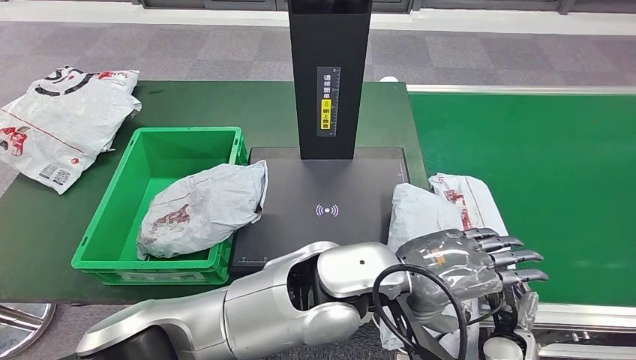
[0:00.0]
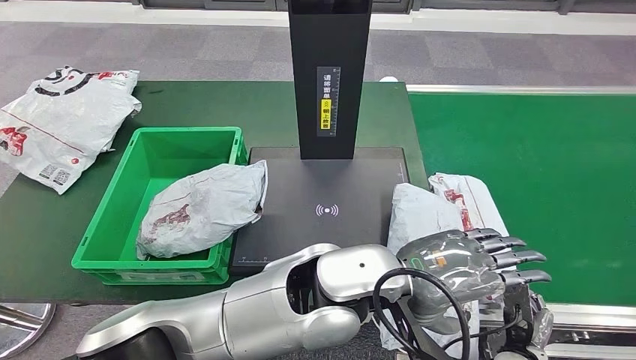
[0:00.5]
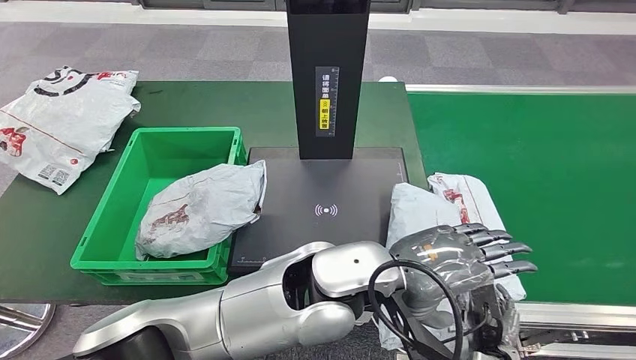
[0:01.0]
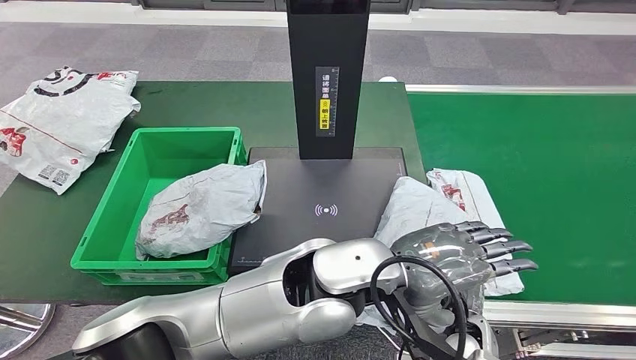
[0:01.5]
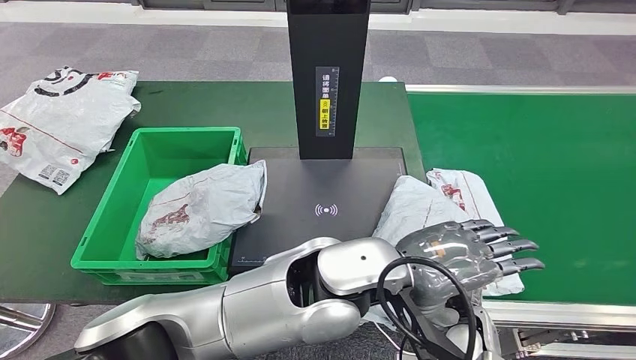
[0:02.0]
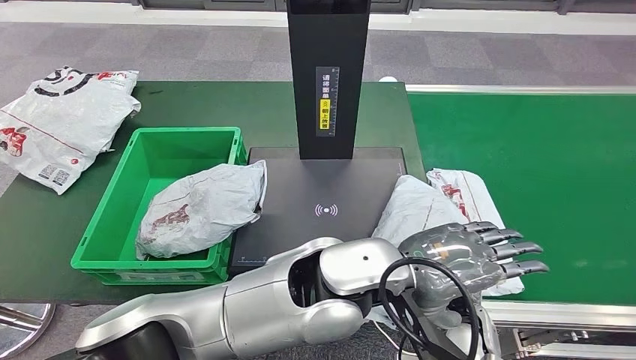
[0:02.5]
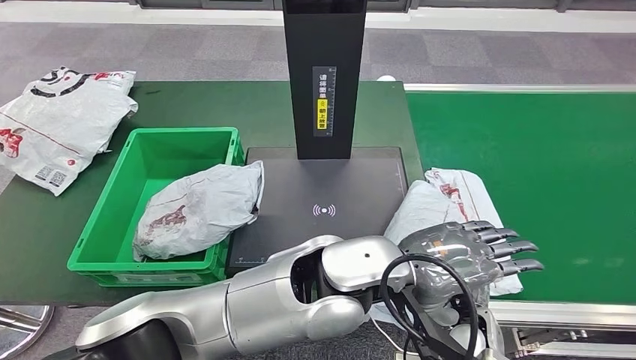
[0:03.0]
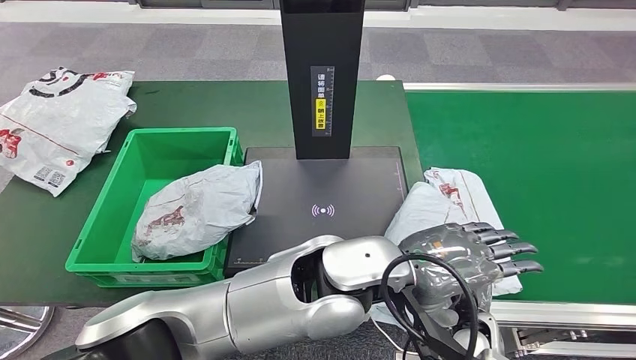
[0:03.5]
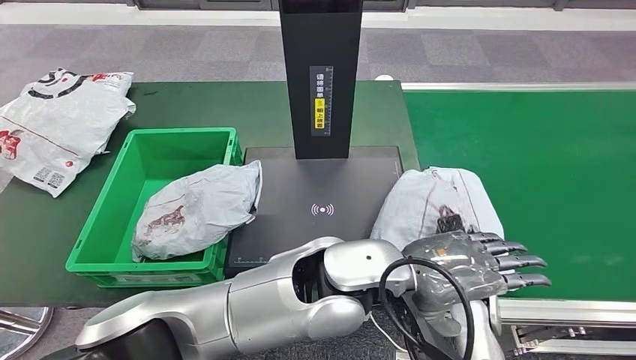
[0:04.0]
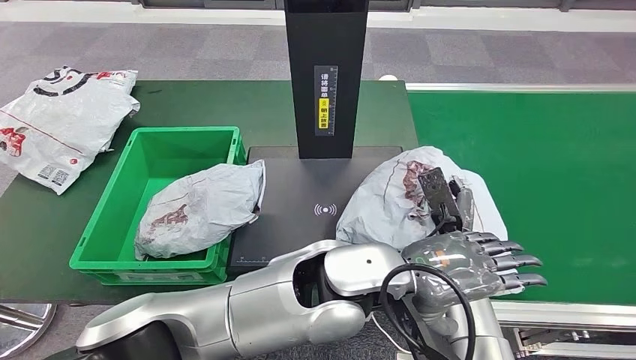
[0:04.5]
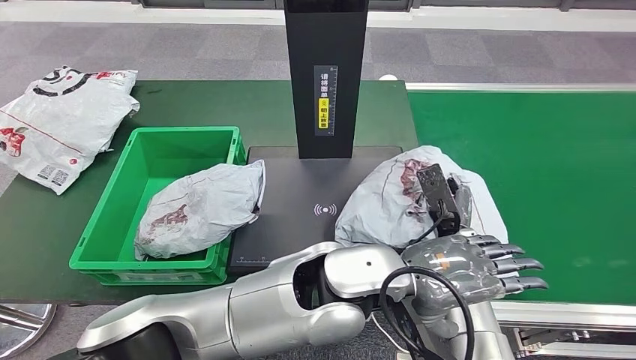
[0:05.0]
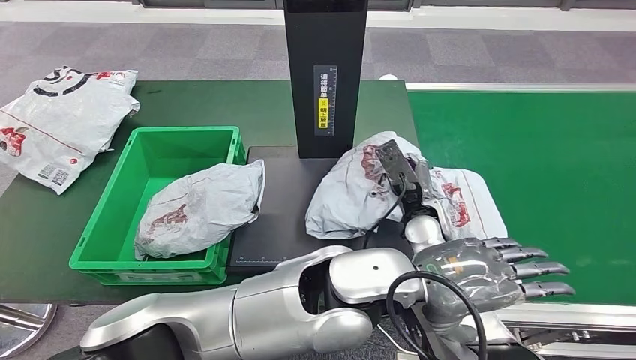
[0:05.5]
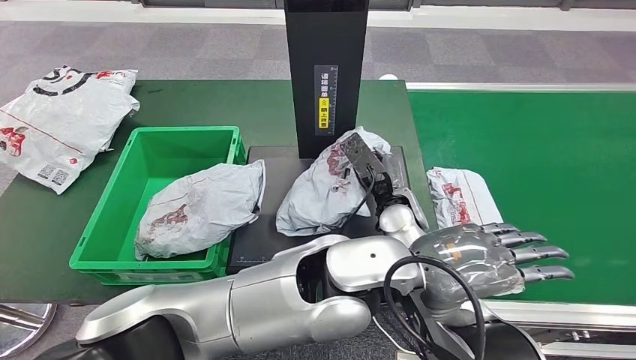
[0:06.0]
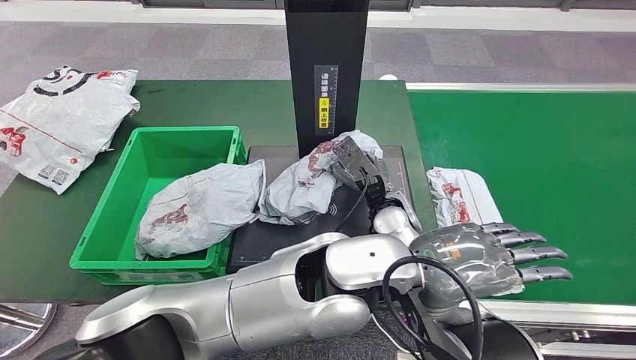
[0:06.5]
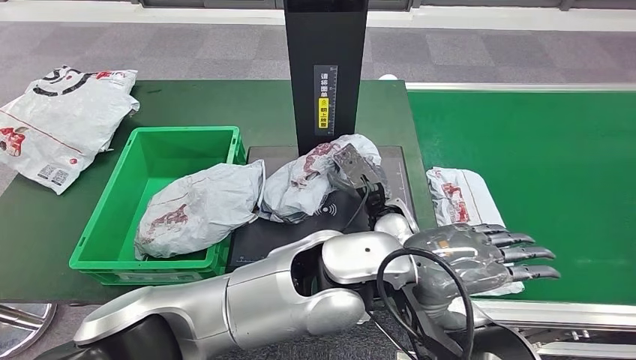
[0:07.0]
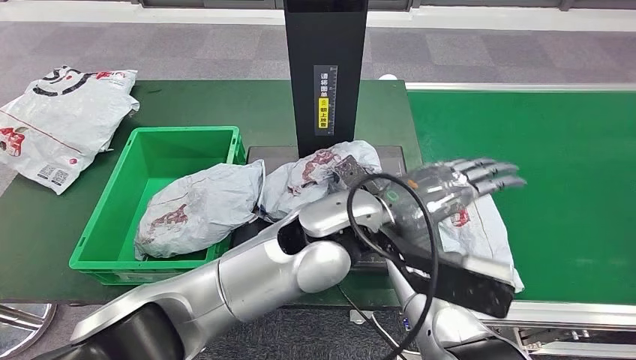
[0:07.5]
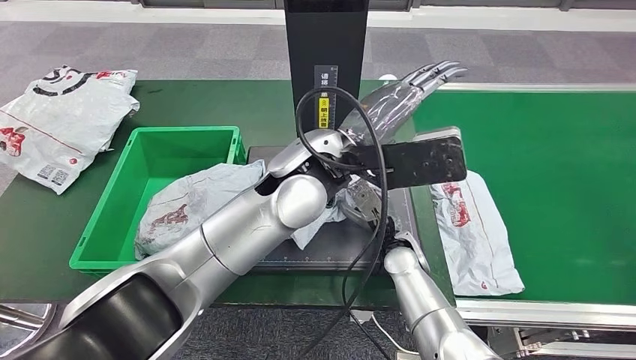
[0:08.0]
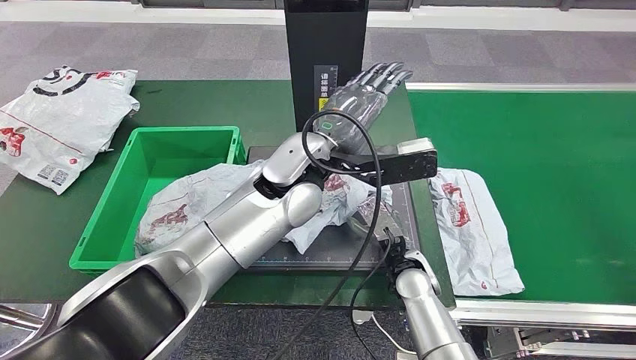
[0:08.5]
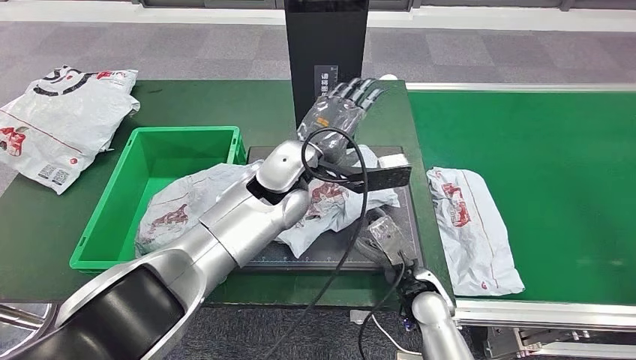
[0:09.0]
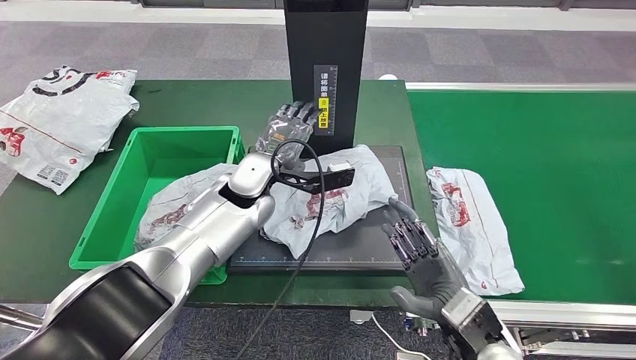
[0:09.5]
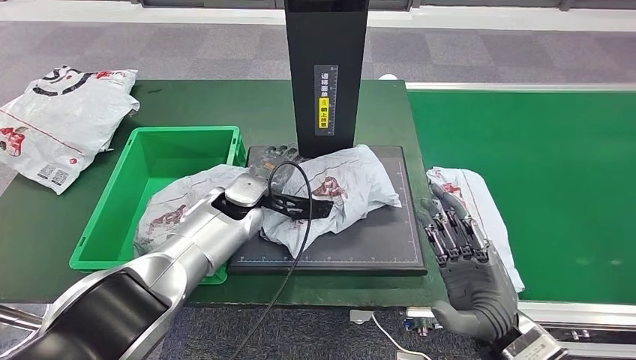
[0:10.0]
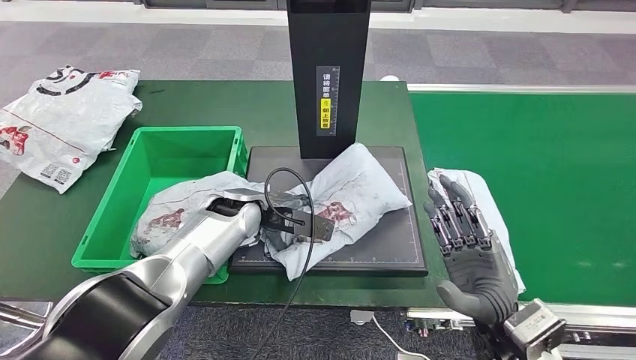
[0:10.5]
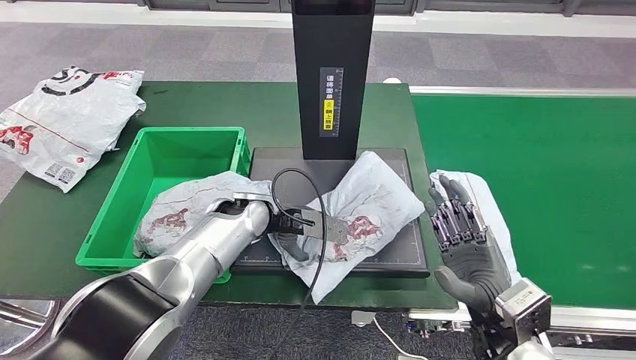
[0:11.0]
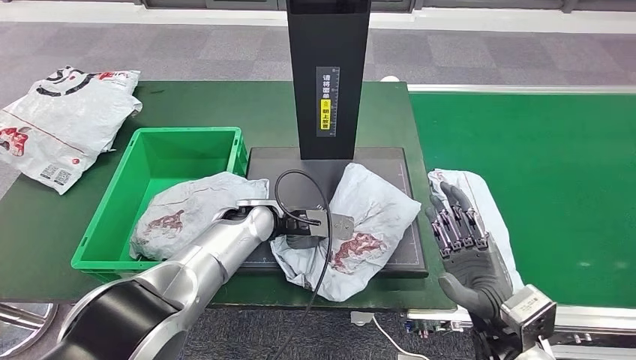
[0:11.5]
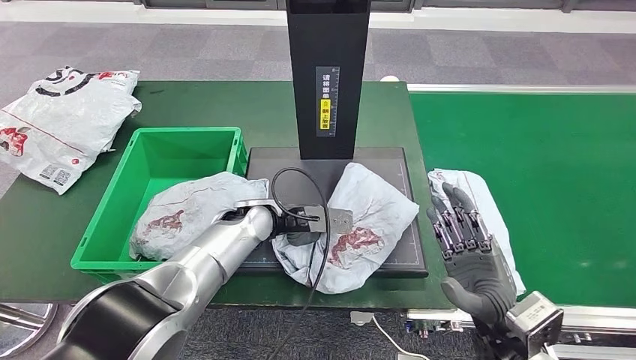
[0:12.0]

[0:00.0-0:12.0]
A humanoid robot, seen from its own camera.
0:00.0 to 0:02.0: The right hand travels to the left by roughly 10 cm.
0:02.0 to 0:04.0: The right hand moves some 5 cm.

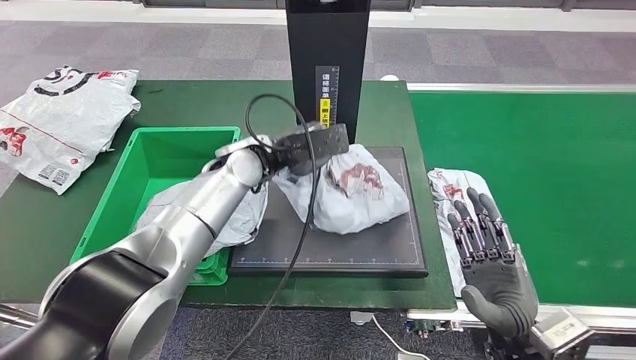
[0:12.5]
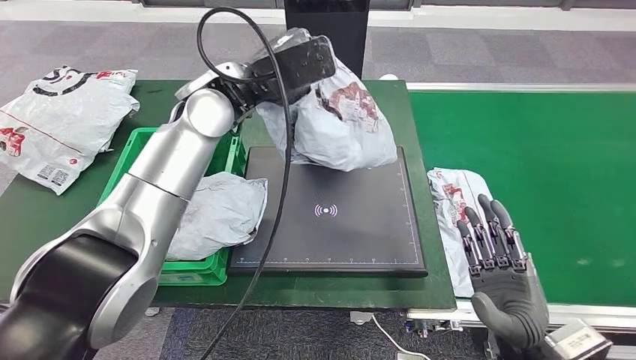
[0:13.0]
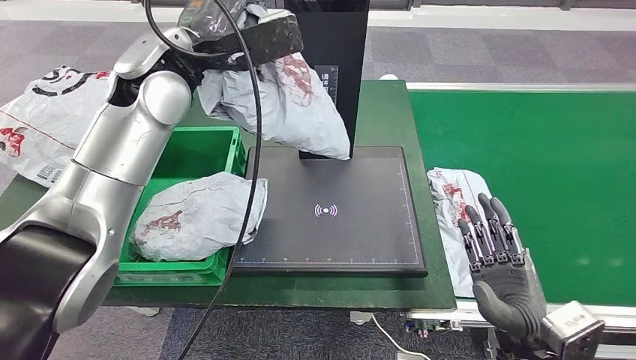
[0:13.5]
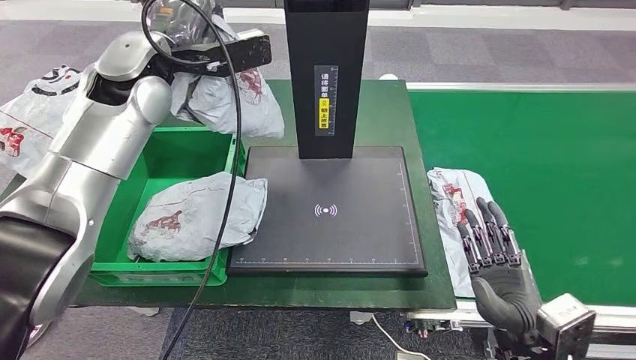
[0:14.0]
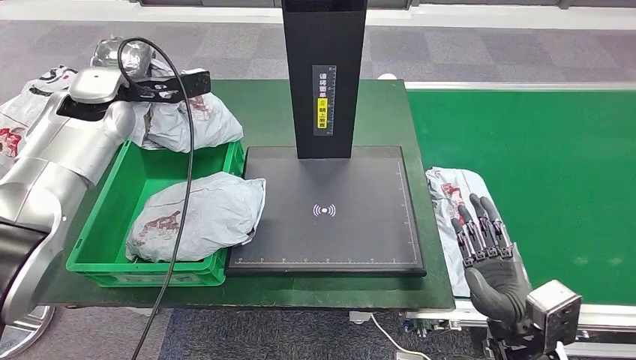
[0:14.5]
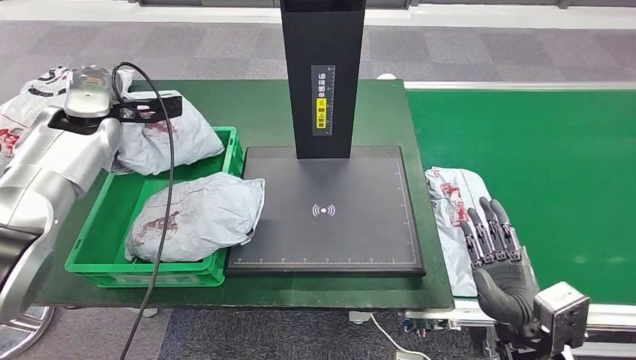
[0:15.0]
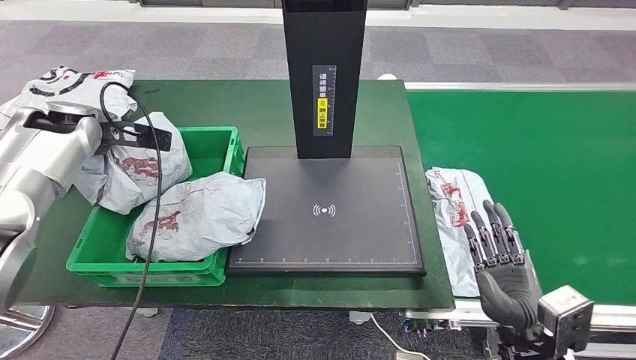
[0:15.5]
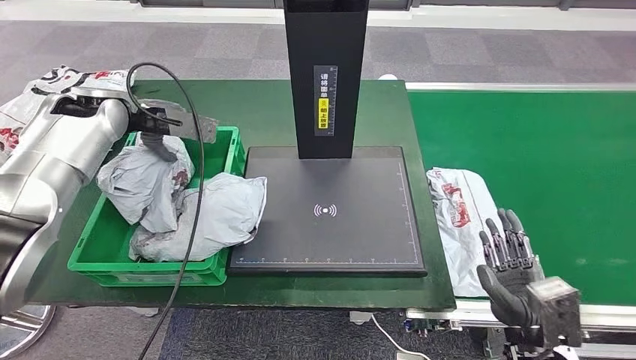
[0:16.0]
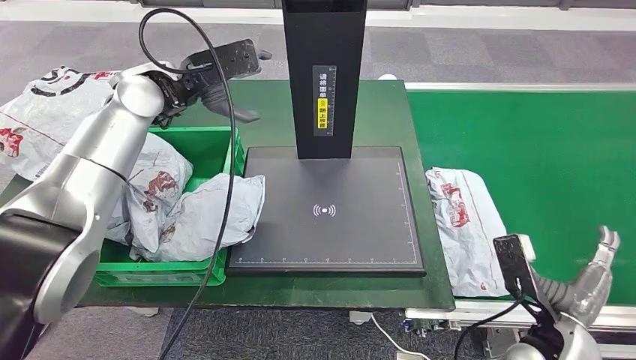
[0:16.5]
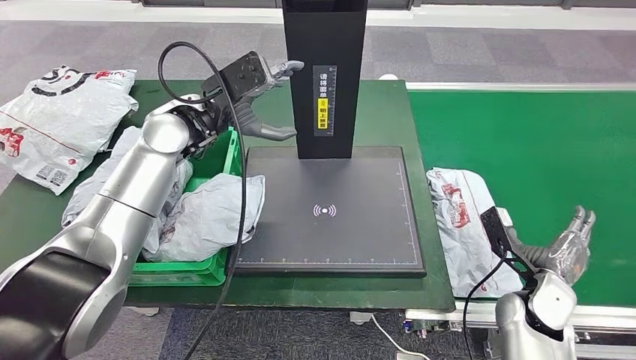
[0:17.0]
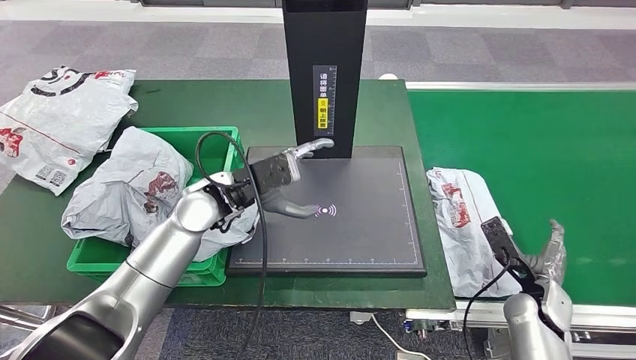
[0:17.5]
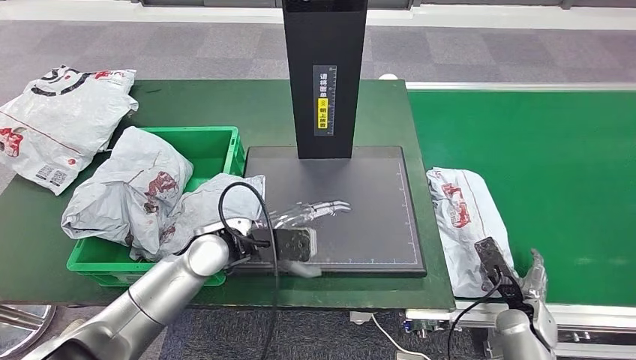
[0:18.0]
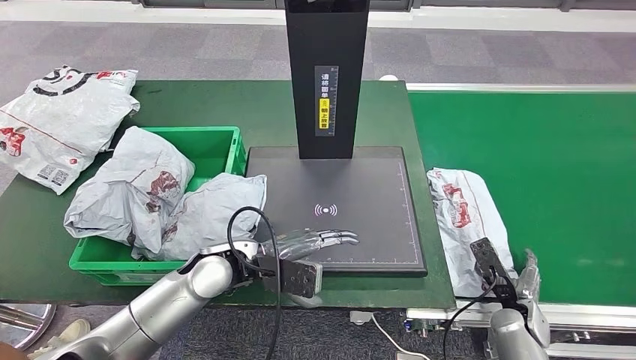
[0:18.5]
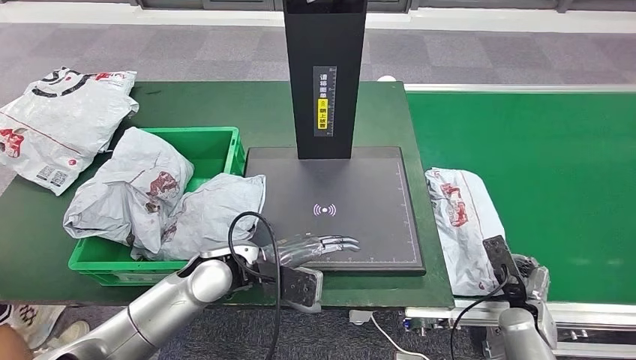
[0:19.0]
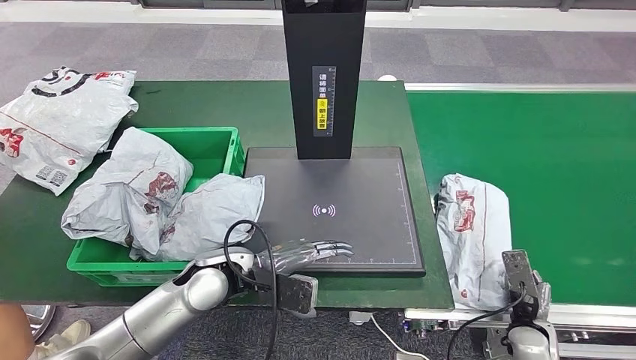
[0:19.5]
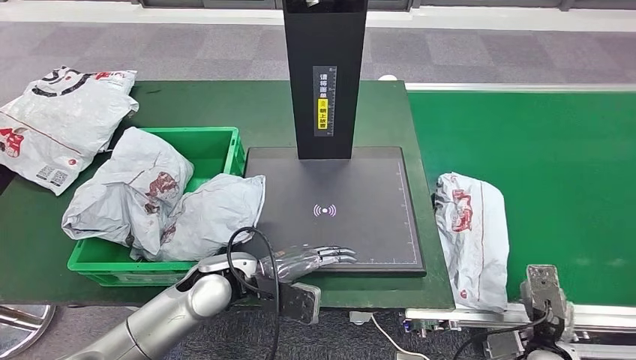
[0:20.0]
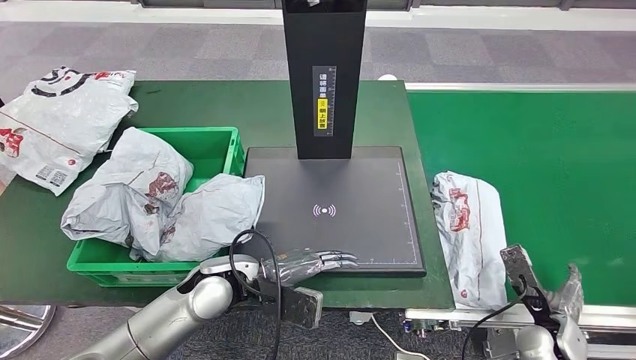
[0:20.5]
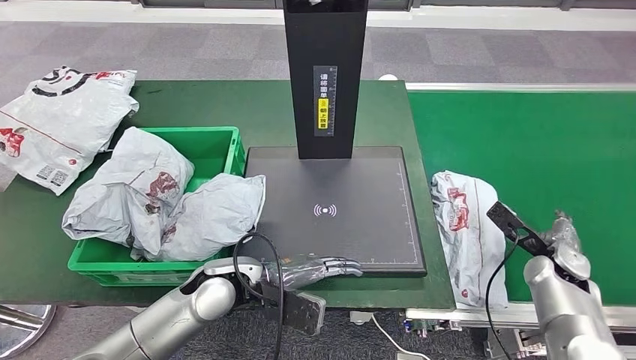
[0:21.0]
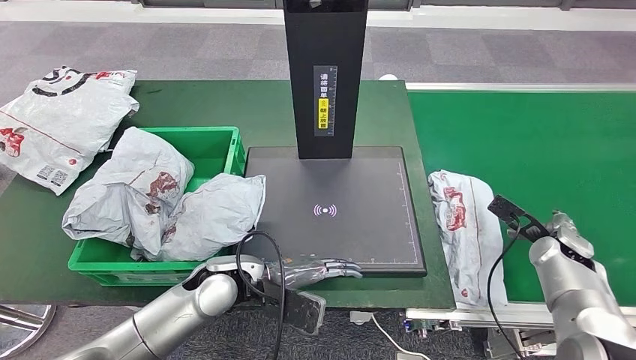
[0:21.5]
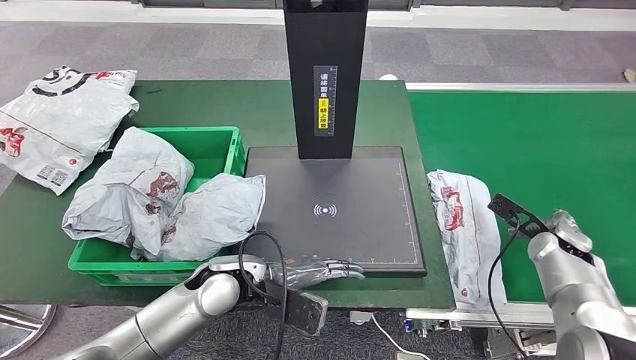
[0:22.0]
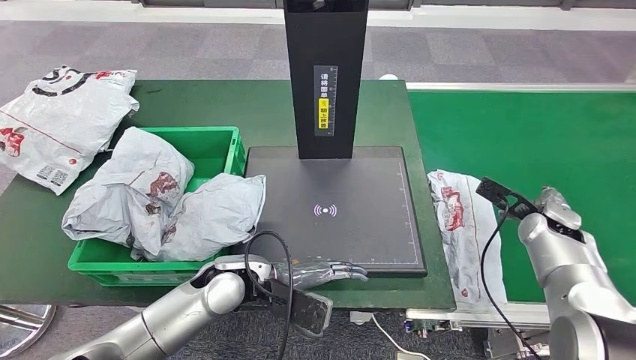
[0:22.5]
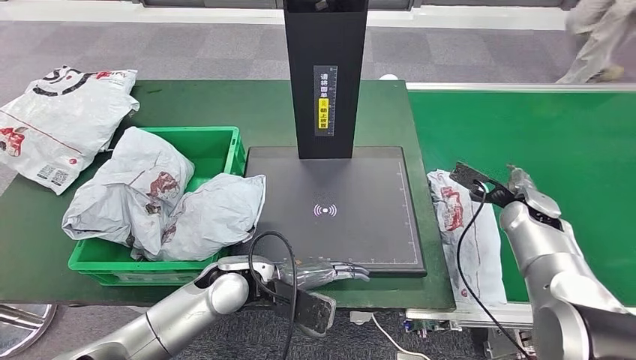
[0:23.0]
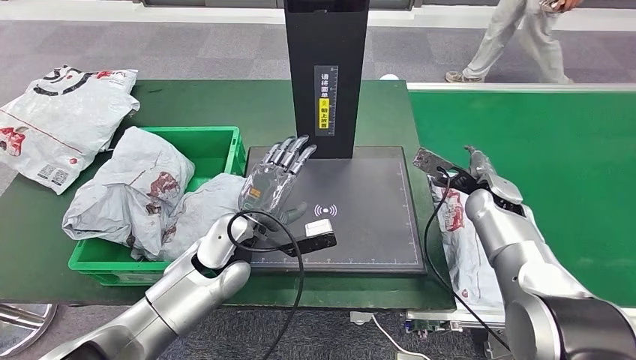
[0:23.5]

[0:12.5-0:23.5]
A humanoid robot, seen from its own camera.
Step, 0:13.5 to 0:16.0: Place the parcel into the delivery box.
0:18.0 to 0:20.0: The left hand ends up approximately 5 cm from where it was, while the right hand travels backward by approximately 5 cm.
0:20.0 to 0:21.5: The right hand travels forward and upward by some 20 cm.
